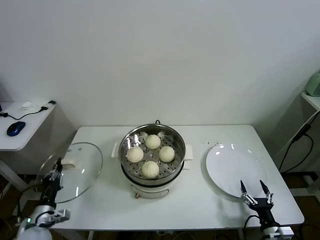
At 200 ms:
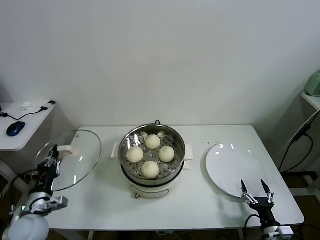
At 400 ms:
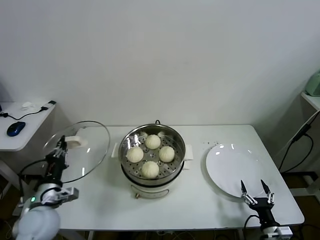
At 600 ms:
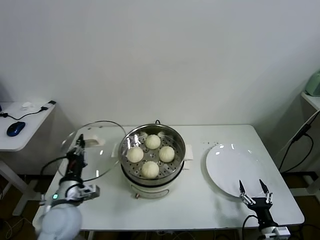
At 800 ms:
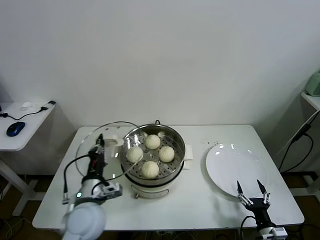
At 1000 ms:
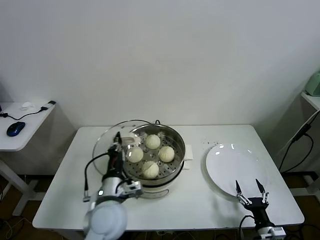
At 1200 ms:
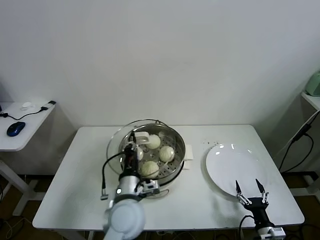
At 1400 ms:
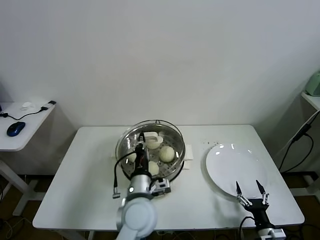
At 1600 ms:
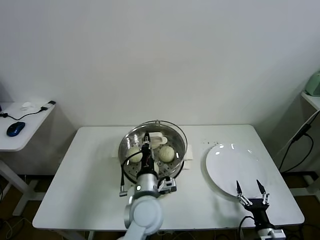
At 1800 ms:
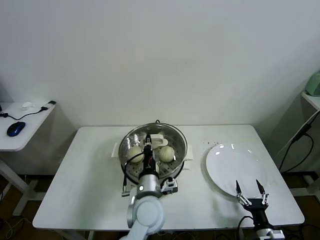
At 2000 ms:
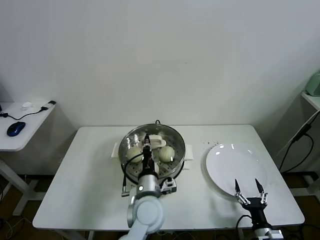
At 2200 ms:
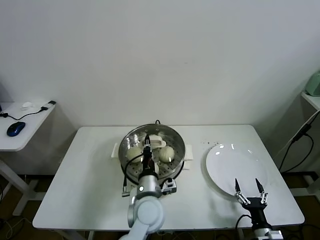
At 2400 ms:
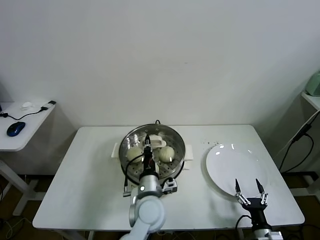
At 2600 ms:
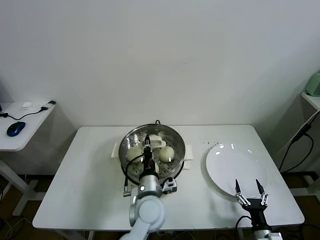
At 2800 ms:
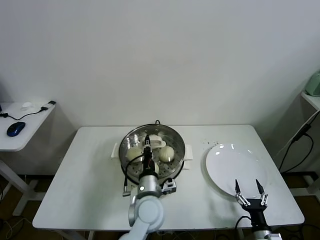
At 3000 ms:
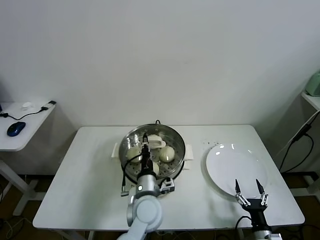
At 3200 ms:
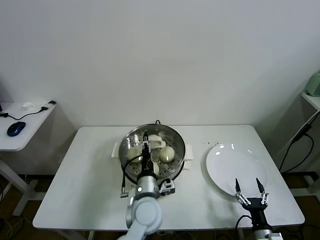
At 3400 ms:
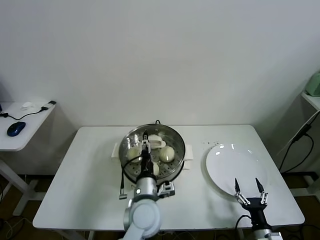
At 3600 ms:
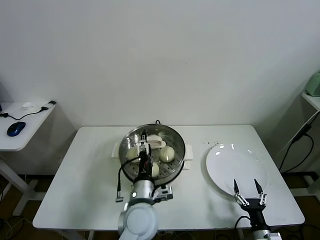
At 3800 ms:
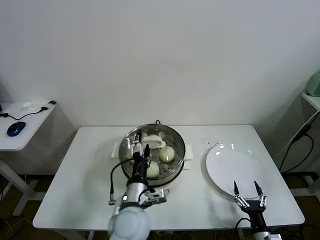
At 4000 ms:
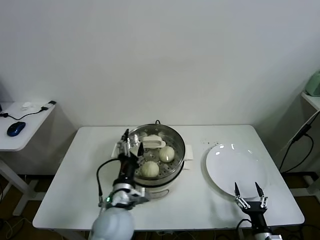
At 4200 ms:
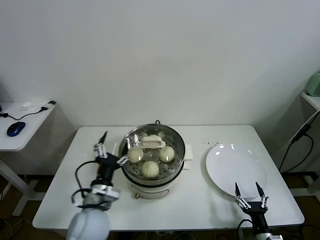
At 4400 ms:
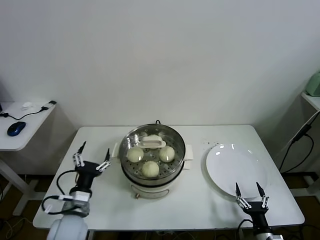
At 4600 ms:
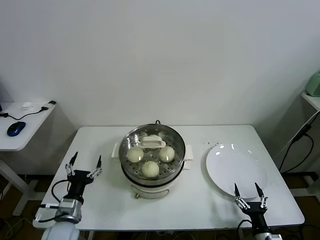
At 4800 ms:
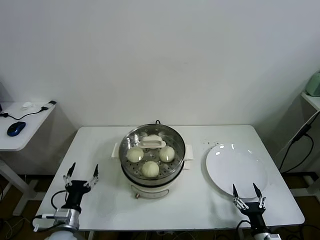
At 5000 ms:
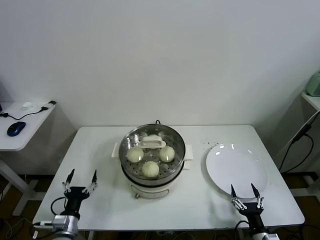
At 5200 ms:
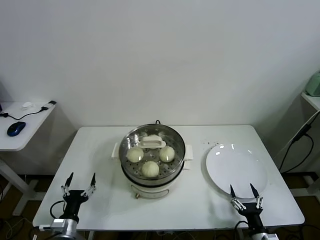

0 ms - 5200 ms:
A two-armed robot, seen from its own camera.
Task of the whole recording: take steamed baozi put them in steamer.
Step, 0 ms - 3400 ms: Place the pot lid on the steamer with left gripper.
0 ms - 1800 ms: The left gripper heads to the right, covering about 35 cm.
1800 ms - 3400 ms: The left gripper opens up.
3400 ms - 5200 ms: The left gripper moves to the left and downward, roughly 30 cm, and opens up.
